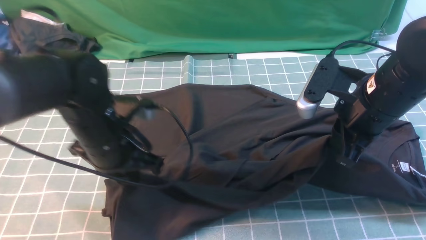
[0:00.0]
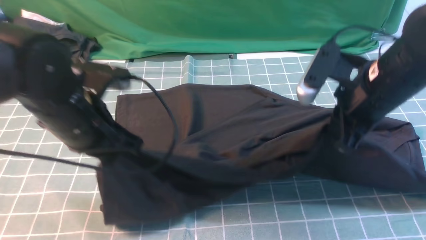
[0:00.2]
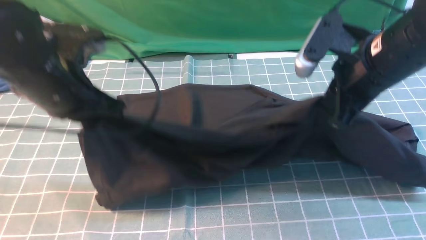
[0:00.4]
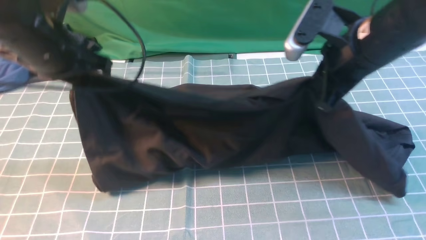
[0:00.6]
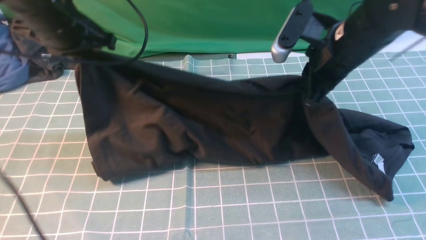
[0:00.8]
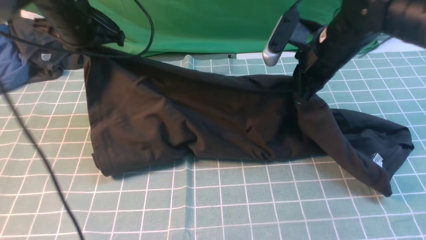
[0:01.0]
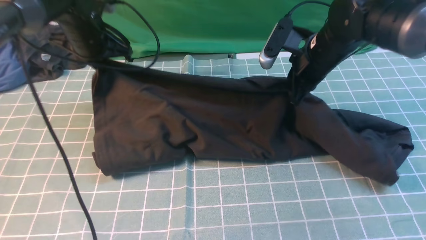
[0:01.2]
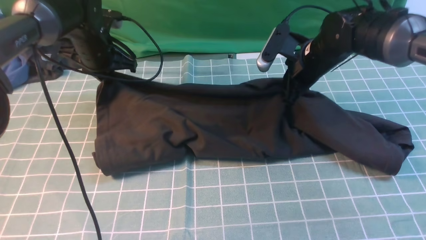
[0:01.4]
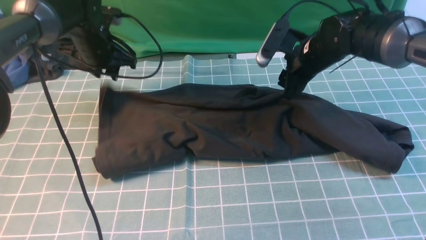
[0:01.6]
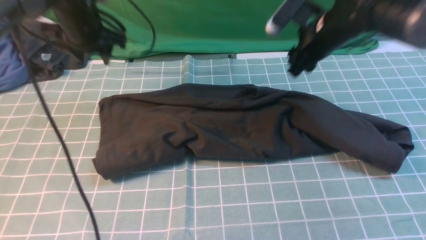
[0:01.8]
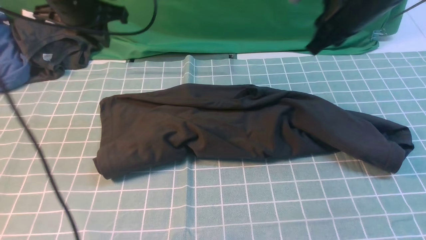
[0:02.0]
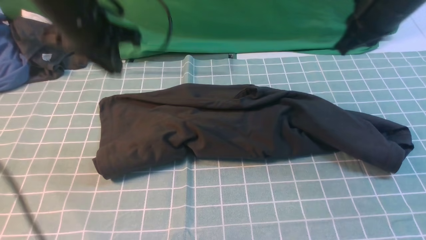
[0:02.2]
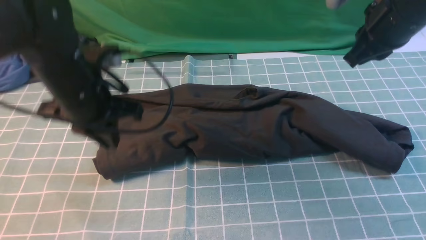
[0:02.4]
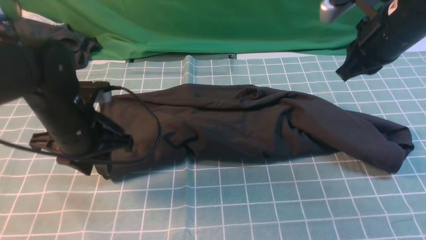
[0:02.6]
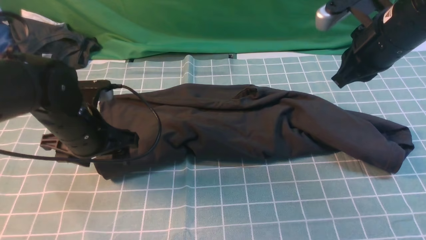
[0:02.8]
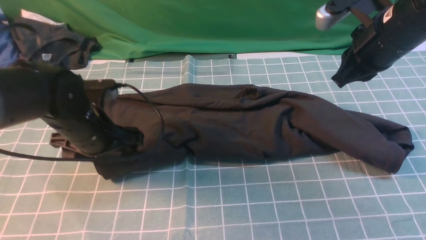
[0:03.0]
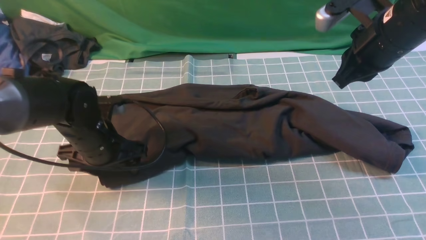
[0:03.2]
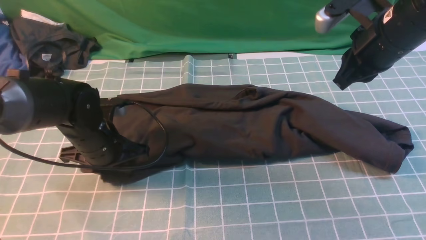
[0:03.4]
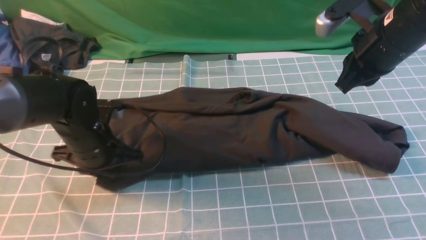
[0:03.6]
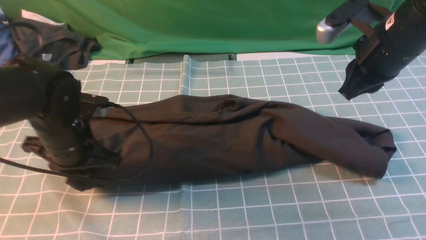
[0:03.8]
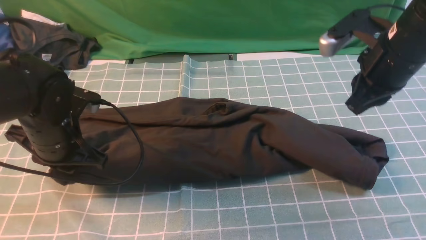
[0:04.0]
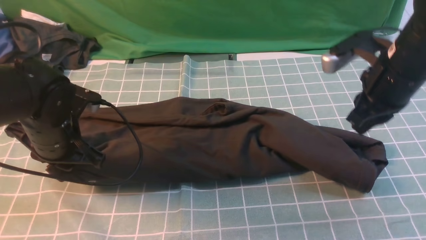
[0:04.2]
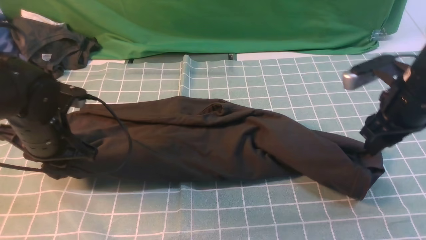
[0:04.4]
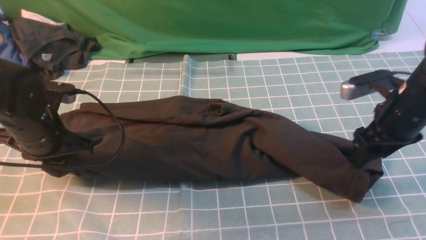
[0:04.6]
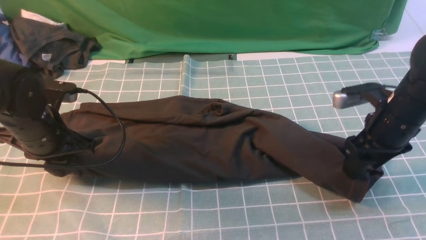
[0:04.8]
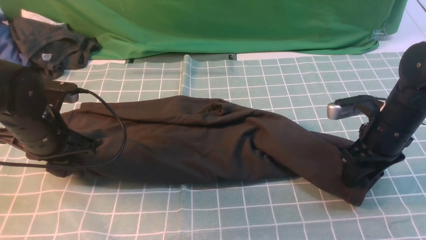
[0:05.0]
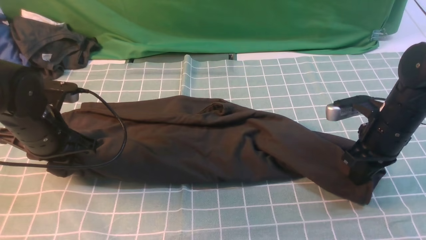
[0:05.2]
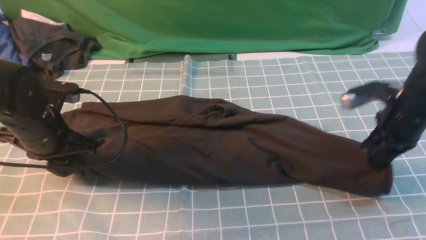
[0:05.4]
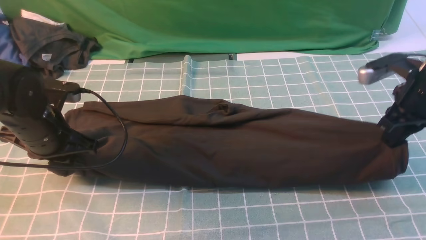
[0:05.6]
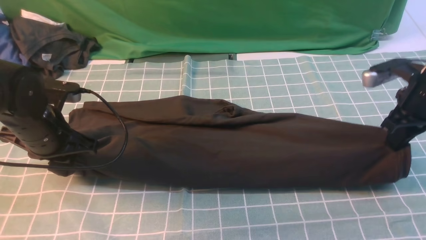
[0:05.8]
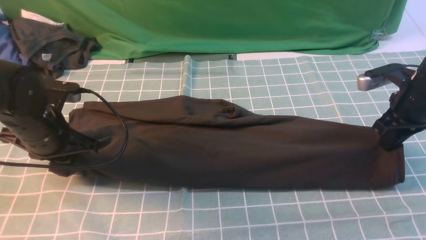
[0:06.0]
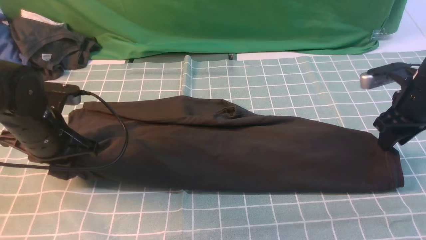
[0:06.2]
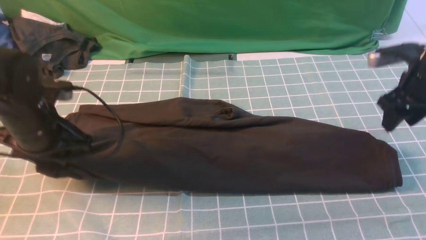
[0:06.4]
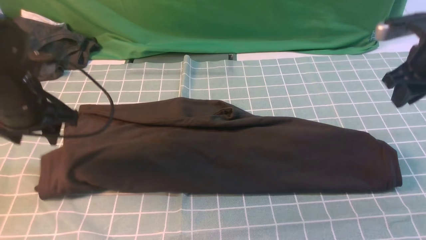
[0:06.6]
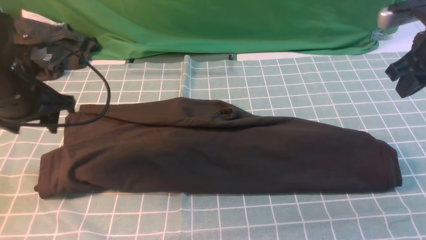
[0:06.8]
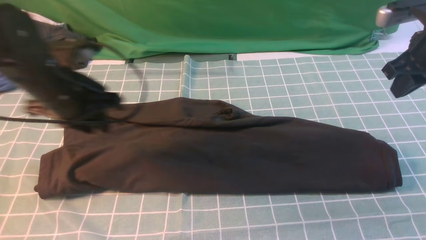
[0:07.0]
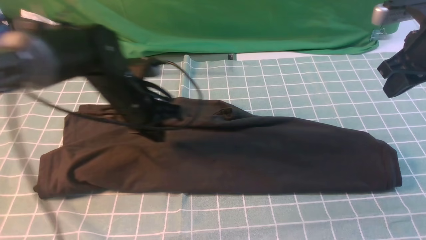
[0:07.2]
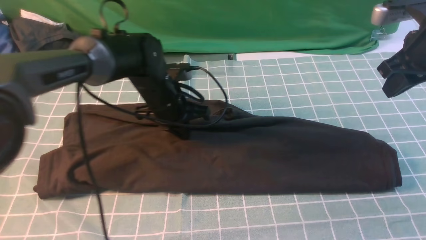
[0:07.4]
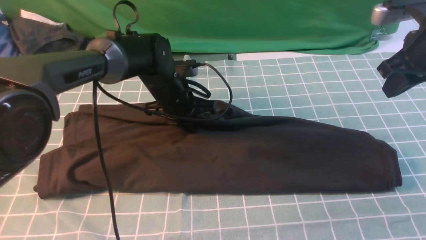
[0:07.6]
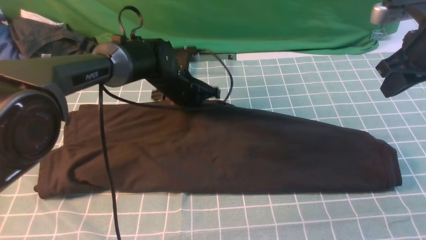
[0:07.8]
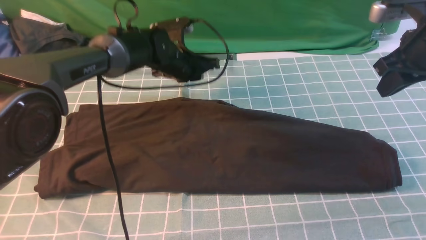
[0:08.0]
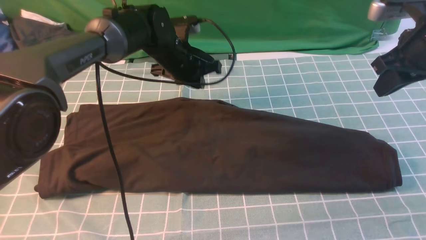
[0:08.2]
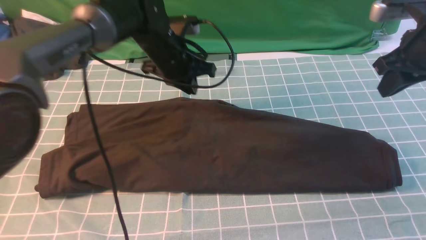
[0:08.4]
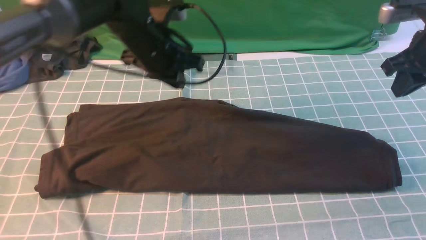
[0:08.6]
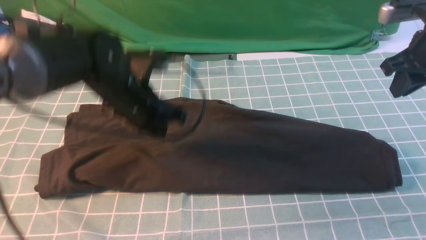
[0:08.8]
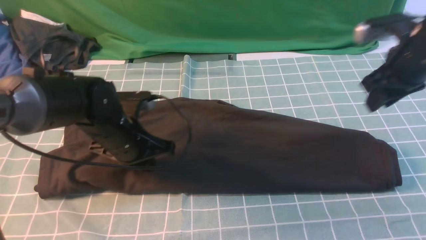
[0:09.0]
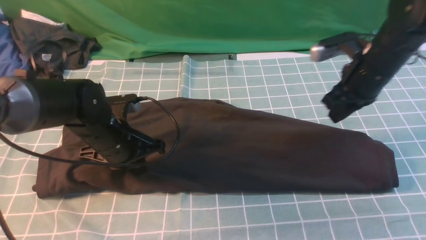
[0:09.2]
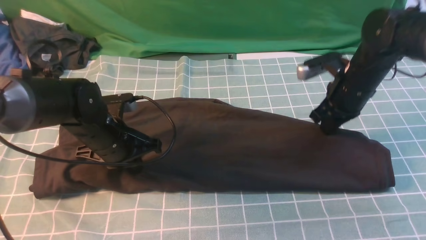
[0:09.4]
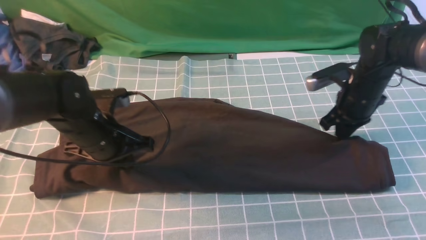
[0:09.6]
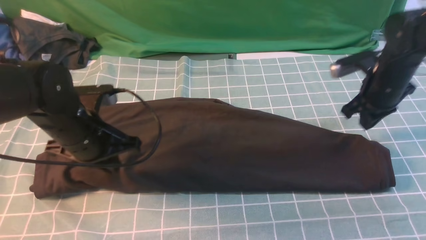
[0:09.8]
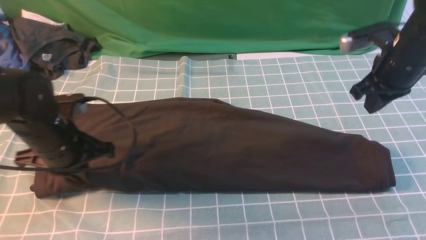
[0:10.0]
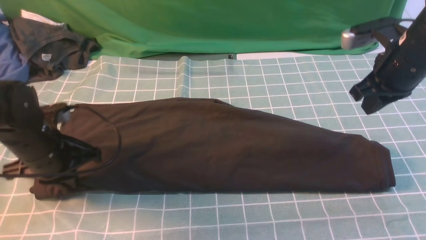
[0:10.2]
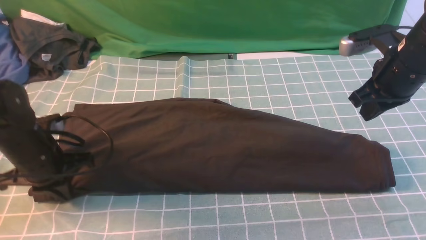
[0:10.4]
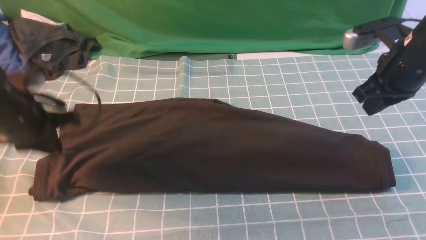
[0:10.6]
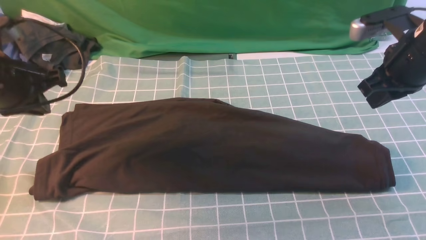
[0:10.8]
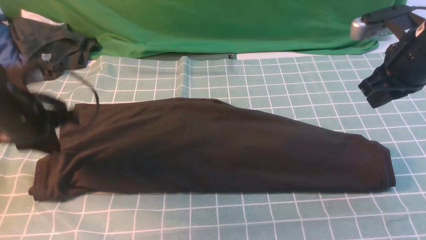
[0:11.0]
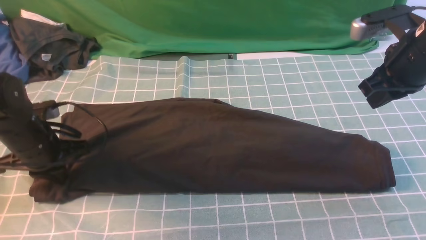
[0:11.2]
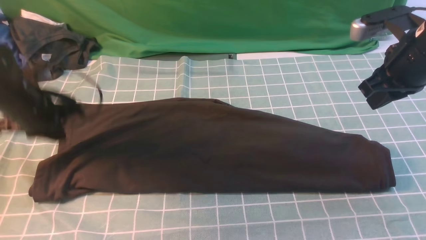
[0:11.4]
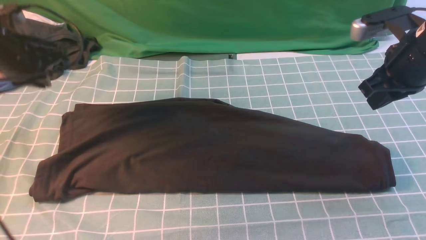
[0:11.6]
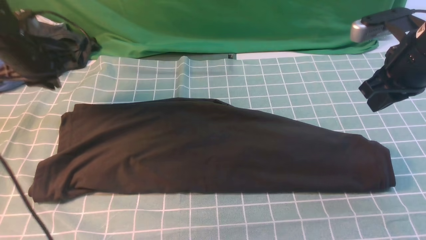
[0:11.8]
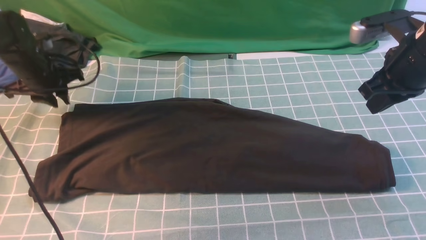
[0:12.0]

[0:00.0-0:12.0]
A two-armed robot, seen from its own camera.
Step, 0:00.0 to 0:02.2: use both arms to drag the lower edge of the fabric forward and fold it over the upper edge.
0:00.0 to 0:01.6: Both grippers move forward, approximately 20 cm. The right gripper opens its fingers. Meanwhile the left gripper opens its fingers.
0:01.6 to 0:03.0: The left gripper shifts some 15 cm backward, and opens. Meanwhile the right gripper goes some 15 cm backward, upward and to the right, and closes.
0:03.0 to 0:04.4: The right gripper travels downward by about 5 cm, and opens. Meanwhile the left gripper moves to the left, about 5 cm, and closes its fingers.
0:04.4 to 0:06.0: The right gripper goes some 5 cm to the right.
0:06.0 to 0:07.6: The left gripper heads to the right and forward, covering approximately 20 cm, and opens and closes again; the right gripper is displaced upward by approximately 10 cm.
0:07.6 to 0:09.0: The right gripper moves some 5 cm; the left gripper moves backward and to the left, approximately 15 cm.
0:09.0 to 0:10.4: The left gripper travels to the left by roughly 10 cm. Meanwhile the right gripper moves roughly 10 cm downward and comes back.
0:10.4 to 0:12.0: The left gripper shifts approximately 15 cm forward and to the left, and opens its fingers.

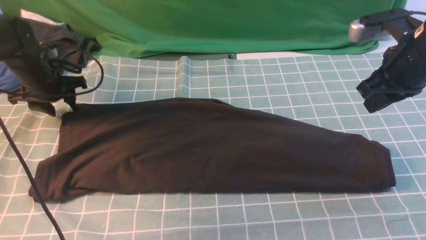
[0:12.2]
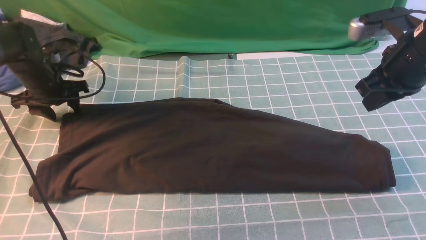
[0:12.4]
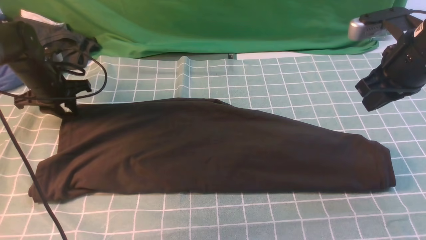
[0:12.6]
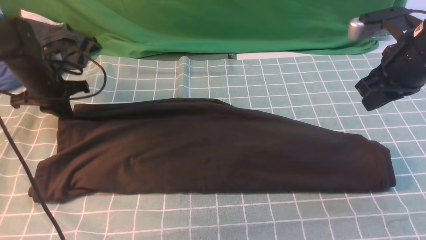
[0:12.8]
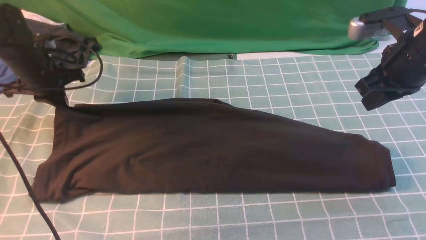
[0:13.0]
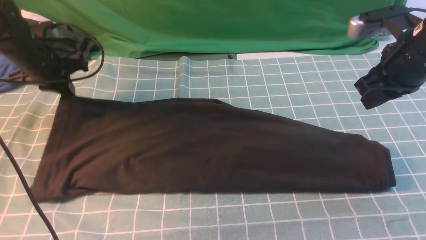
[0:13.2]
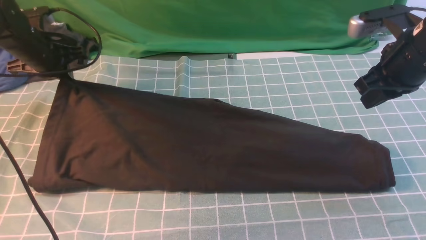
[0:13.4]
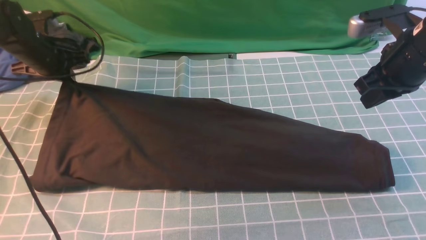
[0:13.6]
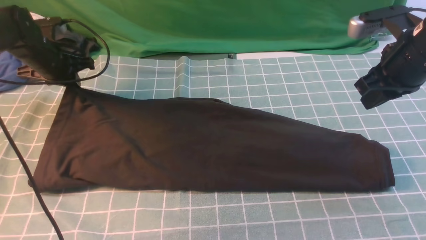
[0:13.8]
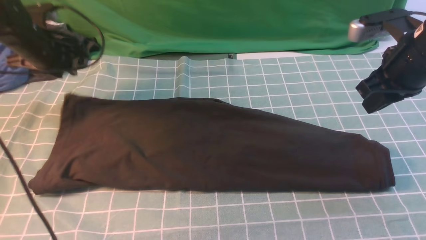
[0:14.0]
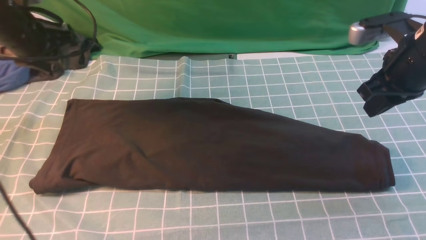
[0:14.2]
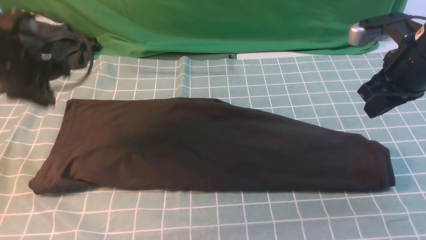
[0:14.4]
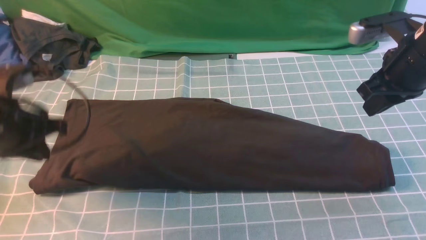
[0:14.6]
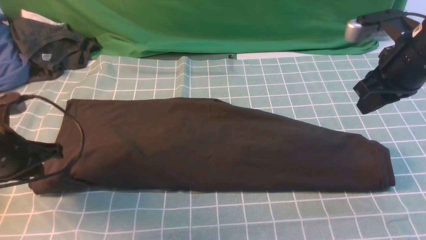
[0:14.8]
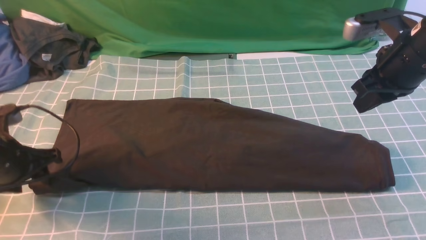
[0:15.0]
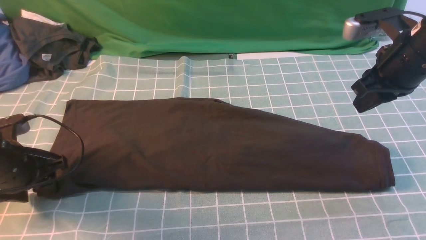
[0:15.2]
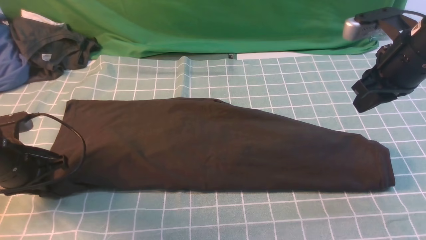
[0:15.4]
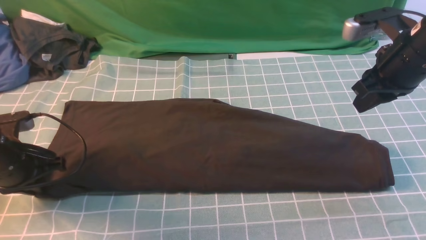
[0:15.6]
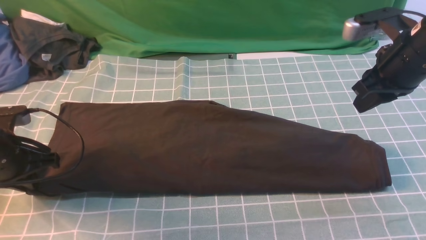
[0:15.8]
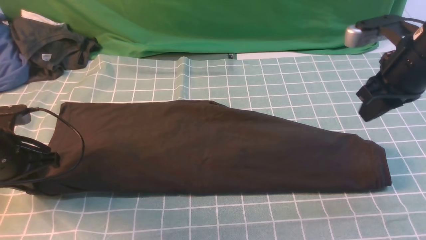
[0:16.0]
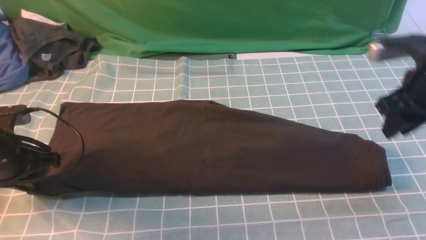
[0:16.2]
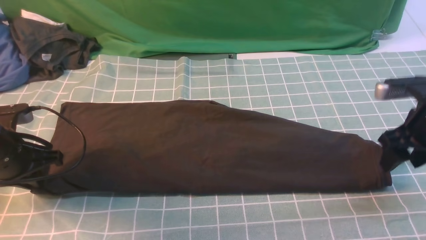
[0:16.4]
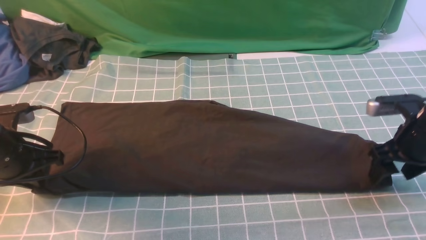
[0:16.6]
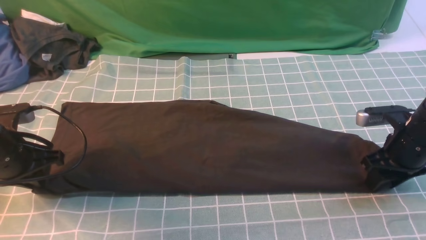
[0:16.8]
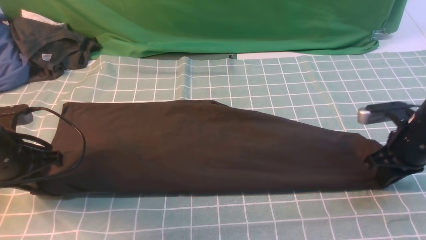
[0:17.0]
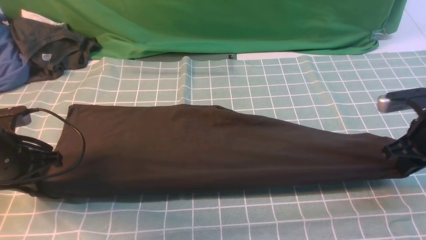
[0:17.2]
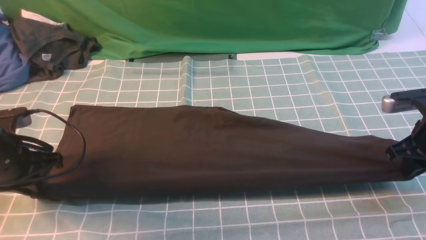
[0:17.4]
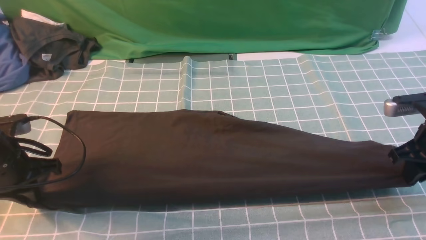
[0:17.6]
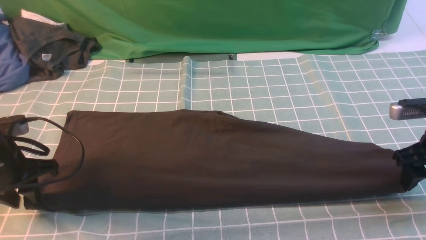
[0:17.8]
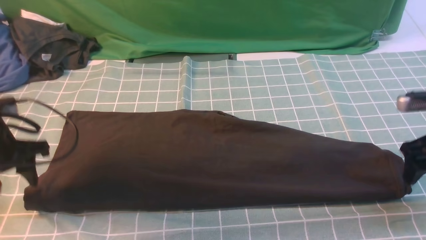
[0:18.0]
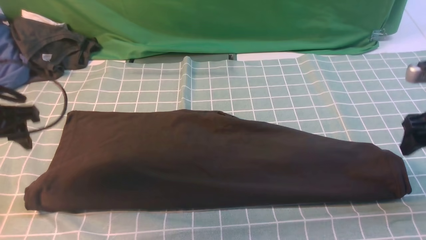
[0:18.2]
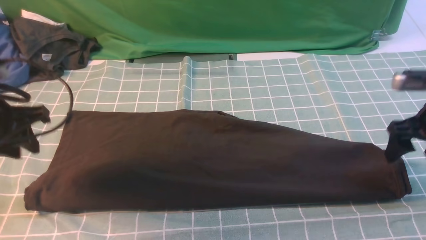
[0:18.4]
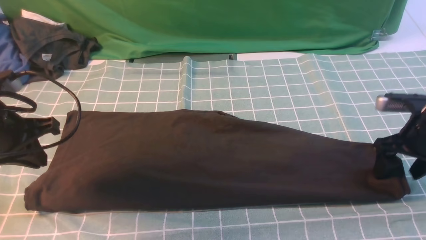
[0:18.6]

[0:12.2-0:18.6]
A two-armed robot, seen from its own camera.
0:12.2 to 0:13.8: The left gripper goes approximately 5 cm upward, and closes.
0:13.8 to 0:15.4: The left gripper heads backward, covering approximately 20 cm, and opens, then closes again.
0:15.4 to 0:17.0: The right gripper goes roughly 15 cm downward and to the right, and opens and closes again.
0:17.0 to 0:18.6: The right gripper opens. Meanwhile the left gripper shifts about 5 cm upward, and opens, then closes once more.
